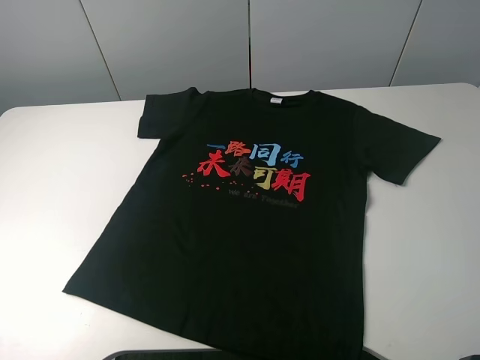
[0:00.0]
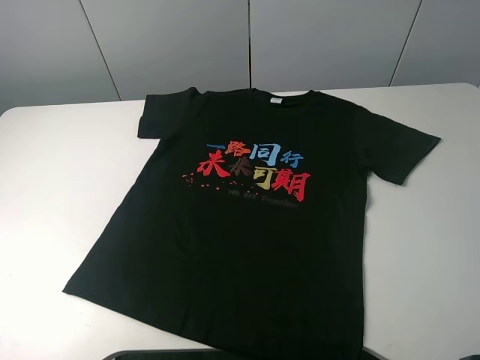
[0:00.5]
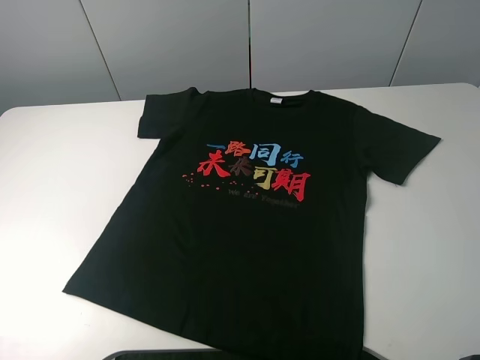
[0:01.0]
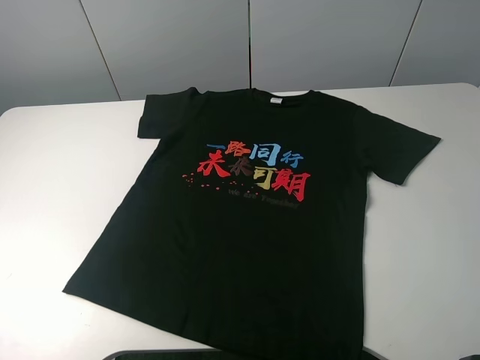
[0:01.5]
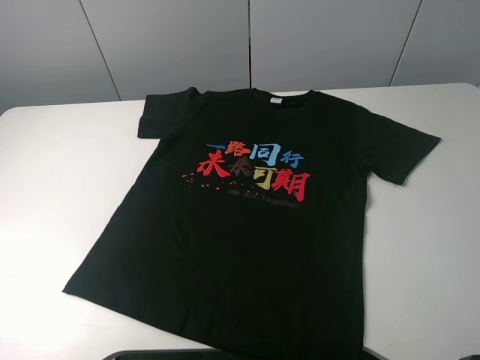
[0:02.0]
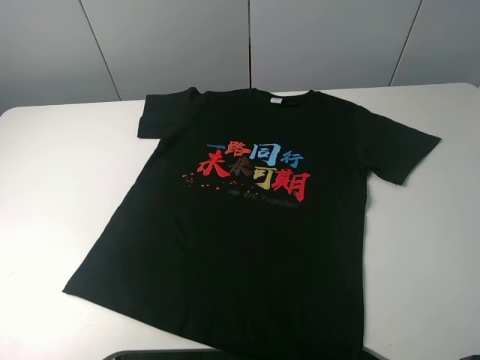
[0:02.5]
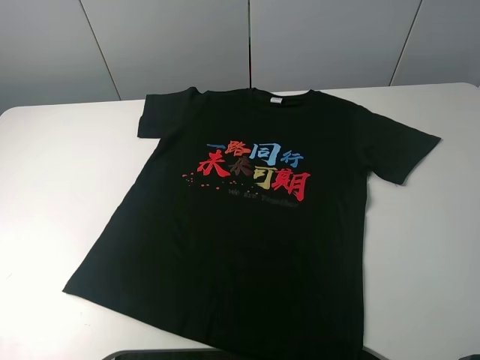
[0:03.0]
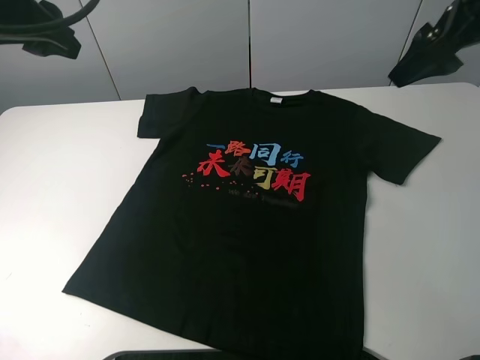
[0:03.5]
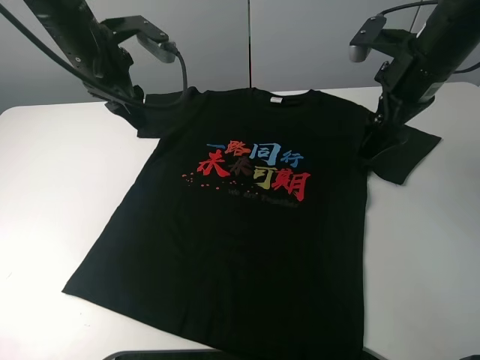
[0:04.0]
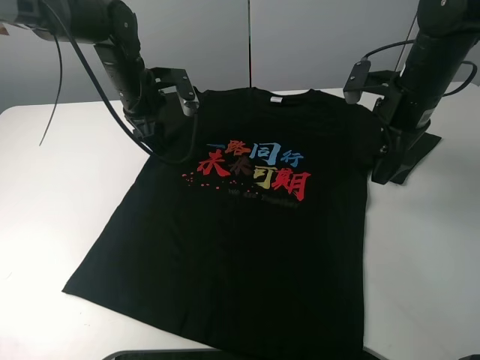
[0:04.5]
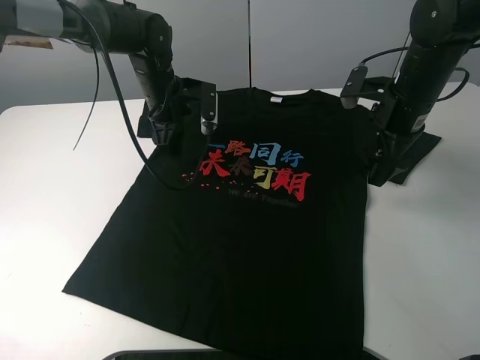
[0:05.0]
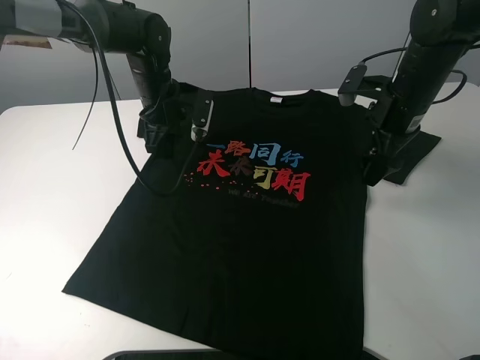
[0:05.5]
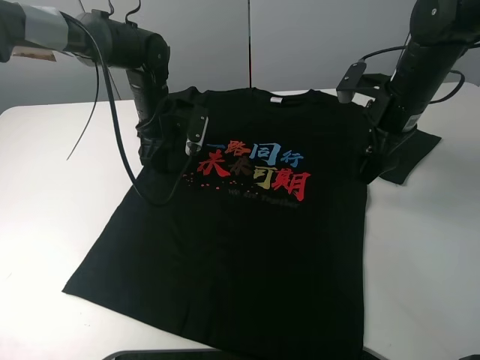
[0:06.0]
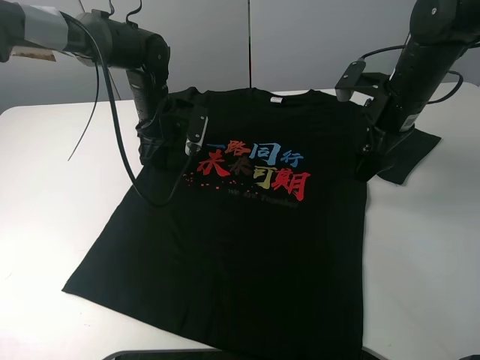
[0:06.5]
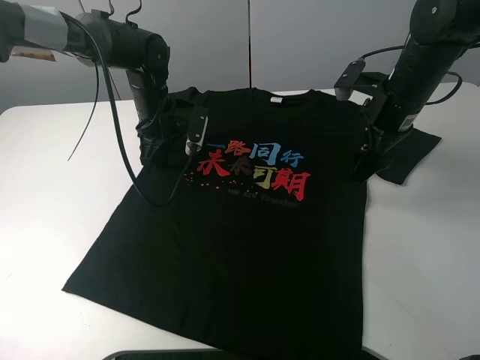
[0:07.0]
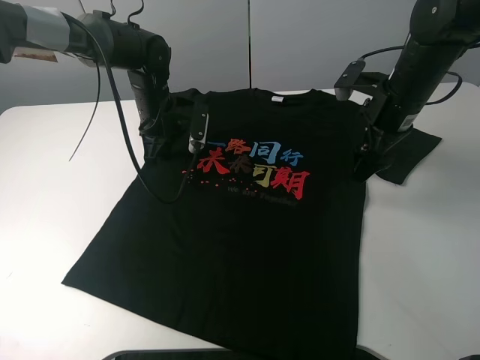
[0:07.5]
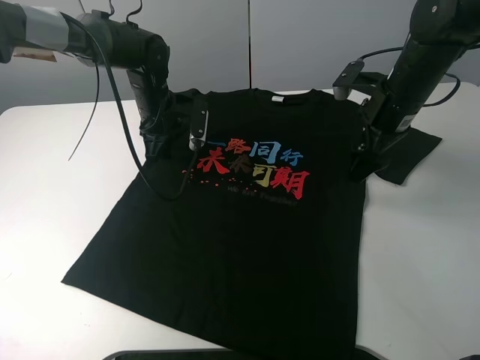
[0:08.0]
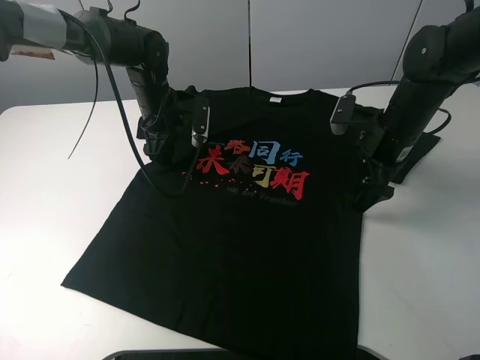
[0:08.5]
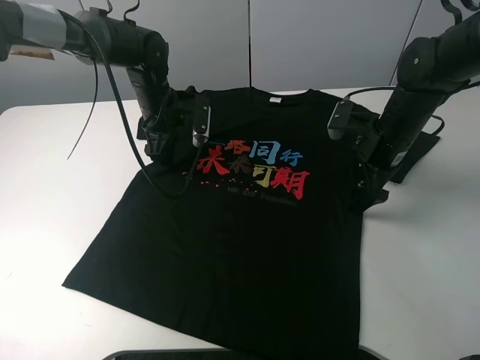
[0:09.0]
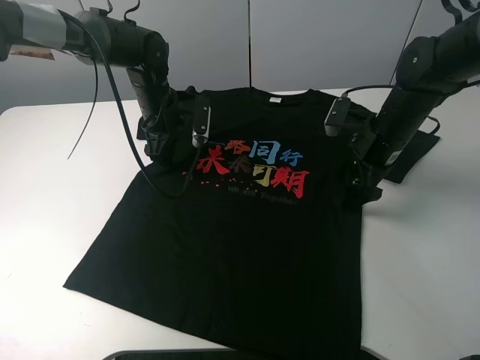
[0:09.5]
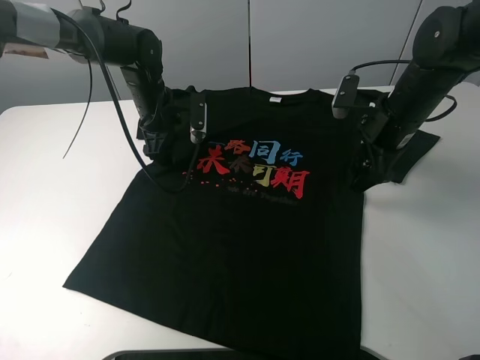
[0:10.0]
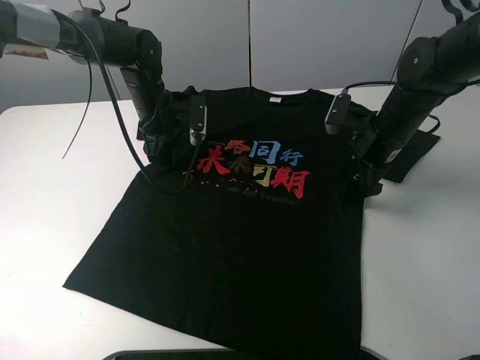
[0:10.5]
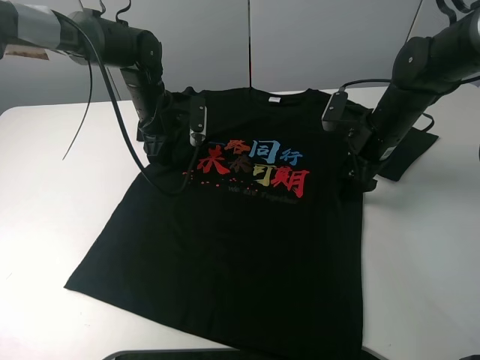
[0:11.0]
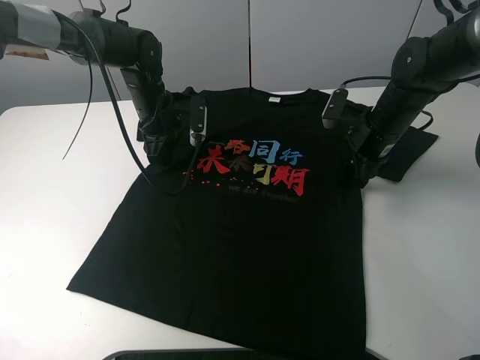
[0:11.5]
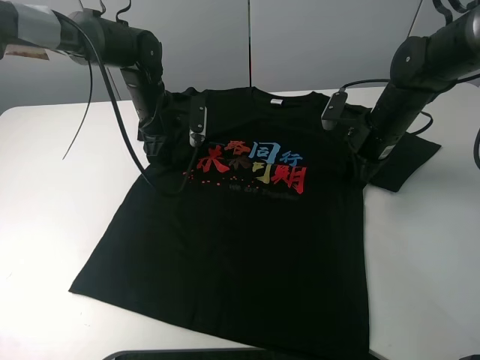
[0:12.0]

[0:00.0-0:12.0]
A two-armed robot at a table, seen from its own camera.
Task of the whole recording: fold the clothes on the table.
Step, 0:00.0 to 0:09.5: Lift the black T-shirt with the left gripper.
0:00.0 to 0:02.0: Both grippers stay put.
0:02.0 to 0:04.0: The left gripper moves forward and to the right, approximately 40 cm. The right gripper heads forward, covering roughly 35 cm.
0:04.0 to 0:06.0: The right gripper goes some 5 cm downward, while the left gripper goes approximately 15 cm downward and to the right.
0:06.0 to 0:08.0: The left gripper closes its fingers.
0:08.0 to 0:10.0: The left gripper opens its fingers.
0:10.0 to 0:12.0: The right gripper moves downward, roughly 5 cm, and closes up.

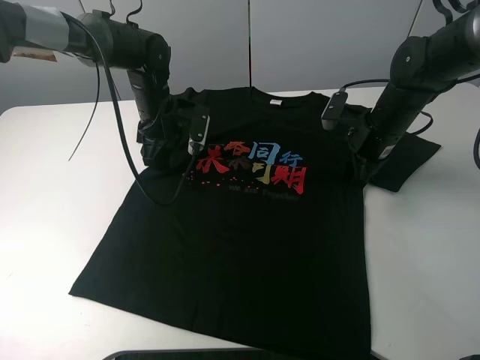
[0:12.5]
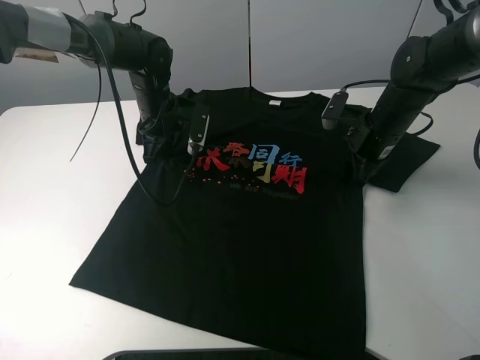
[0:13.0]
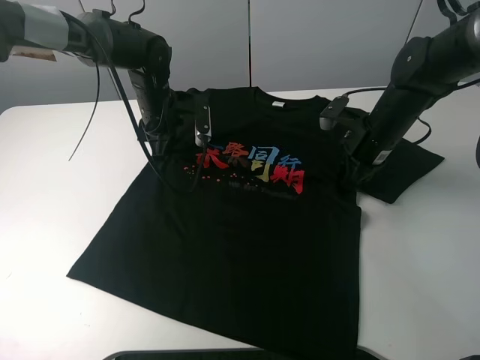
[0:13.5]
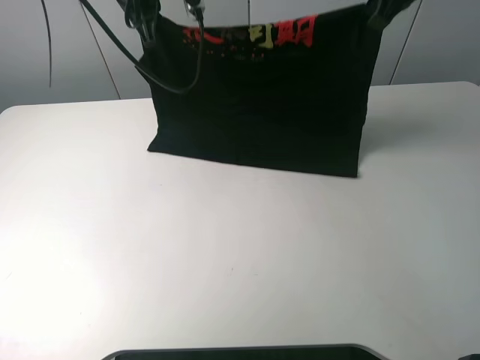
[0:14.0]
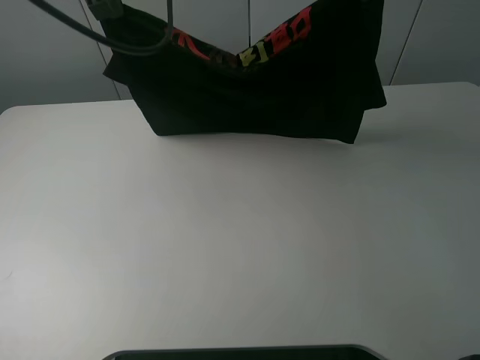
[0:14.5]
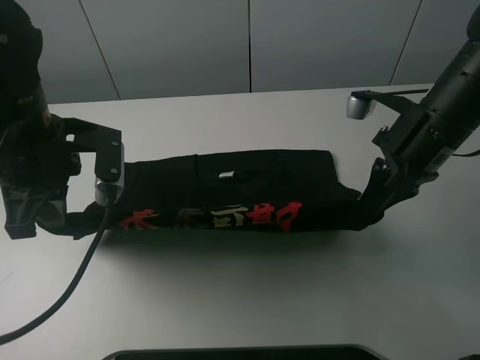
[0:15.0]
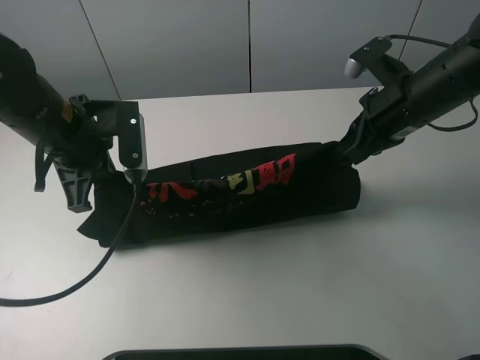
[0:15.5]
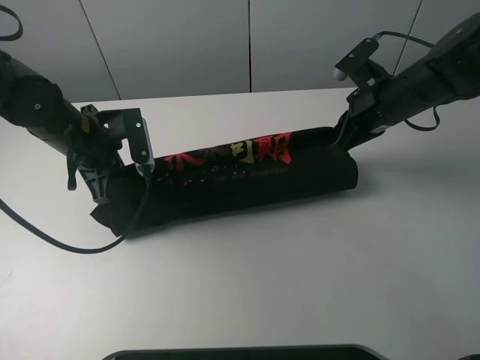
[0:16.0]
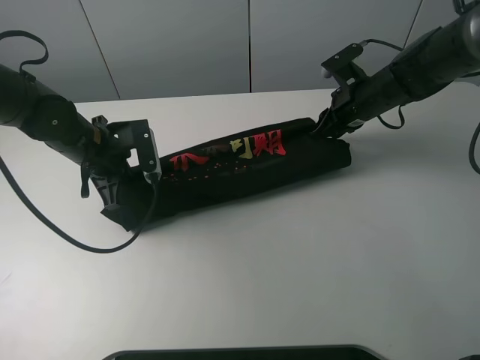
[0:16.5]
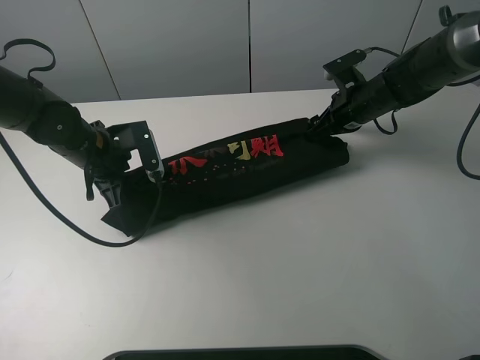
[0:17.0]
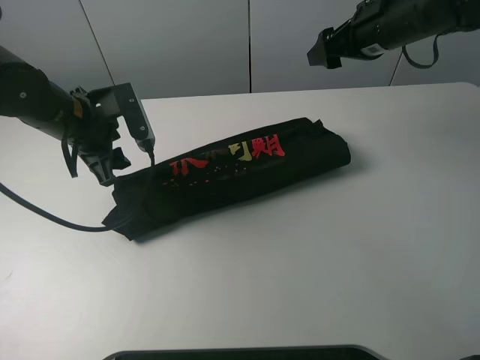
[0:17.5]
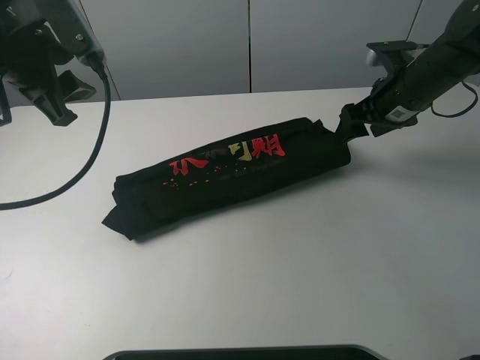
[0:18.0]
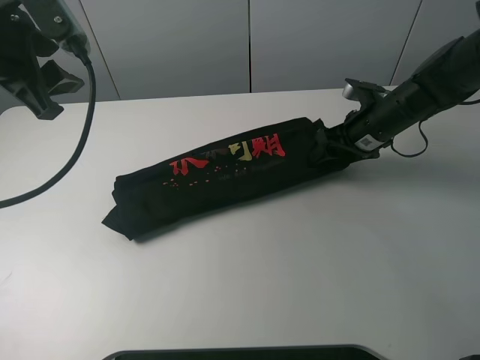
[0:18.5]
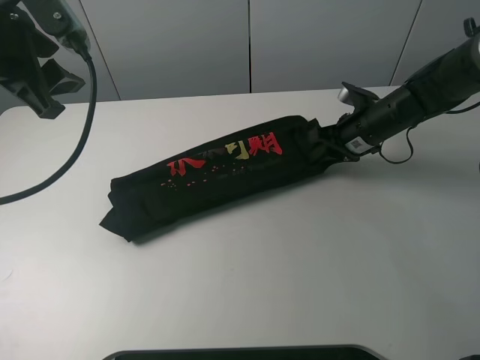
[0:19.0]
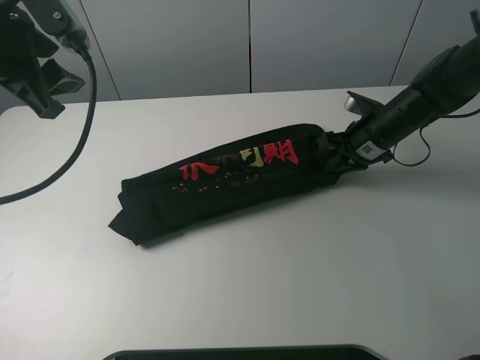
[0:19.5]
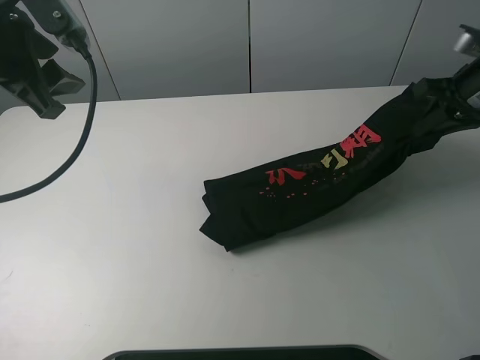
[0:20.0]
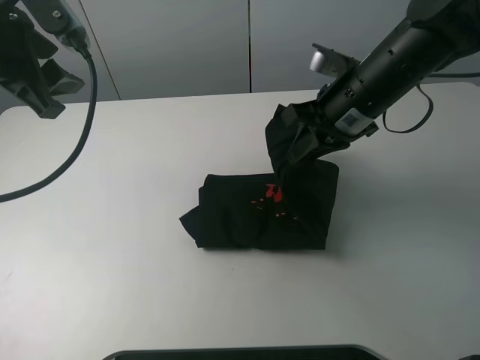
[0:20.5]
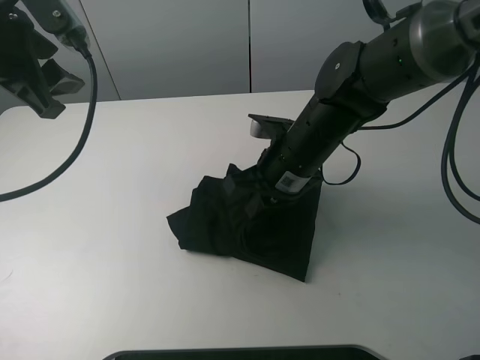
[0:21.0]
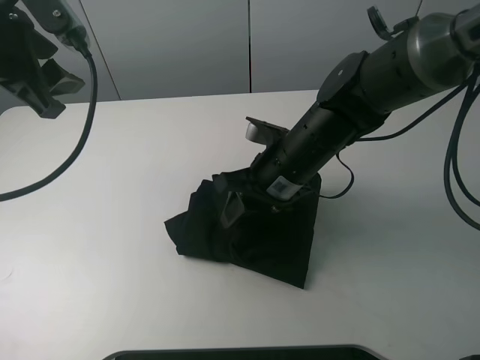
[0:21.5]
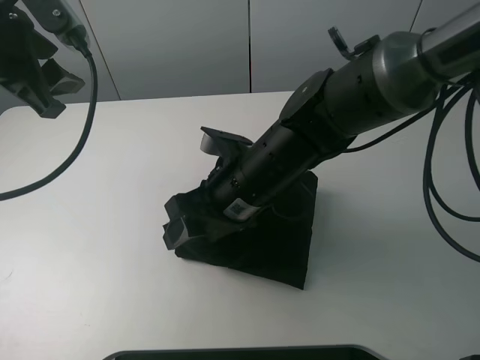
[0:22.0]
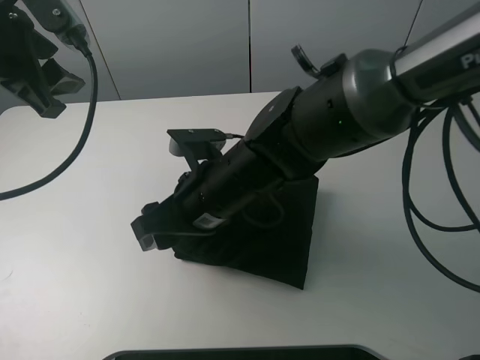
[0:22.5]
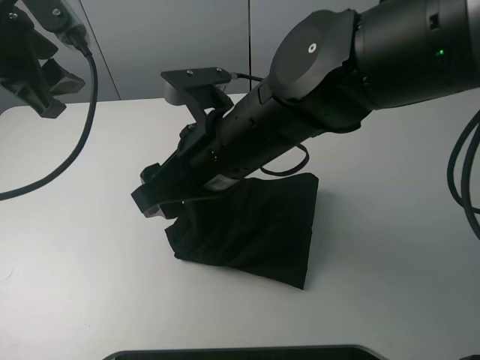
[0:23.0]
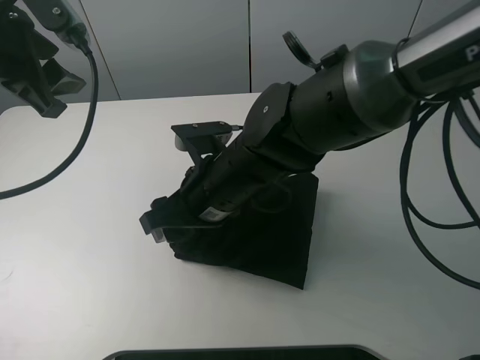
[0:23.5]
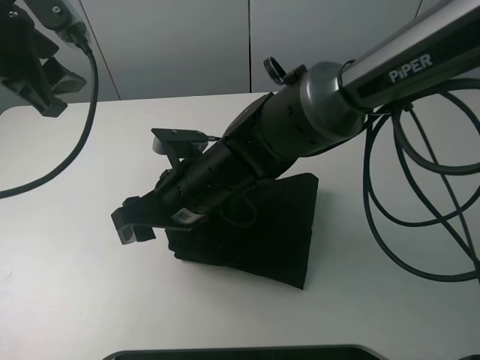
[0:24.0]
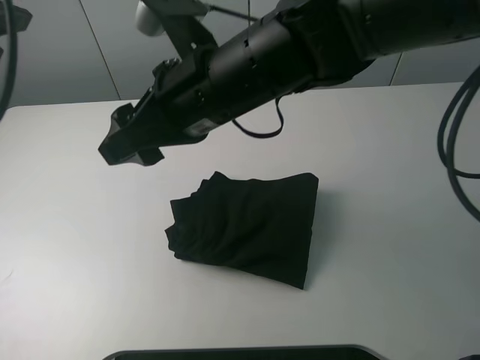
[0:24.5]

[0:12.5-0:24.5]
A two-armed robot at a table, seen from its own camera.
Task of the whole recording: fold the clothes on the table.
Step, 0:12.5 to 0:17.0: Fold the black T-shirt downward with the left gripper.
Step, 0:17.5 to 0:19.0: Grasp the black T-shirt with the right gripper.
Step, 0:19.5 to 0:22.5: Fold the black T-shirt from right to left with right gripper.
0:12.5 to 0:14.5: The two grippers go approximately 25 cm upward. The left gripper closes.
0:14.5 to 0:16.5: Both grippers travel together downward, approximately 25 cm. The right gripper opens its fingers.
0:16.5 to 0:18.5: The left gripper goes roughly 20 cm upward, and opens its fingers; the right gripper goes upward and returns, some 10 cm each way, and opens.
0:18.5 to 0:20.5: The right gripper goes some 15 cm upward, to the left and backward, and closes its fingers.
0:20.5 to 0:22.5: The right gripper heads to the left and backward, covering roughly 20 cm, and opens.
0:22.5 to 0:24.5: The left gripper is displaced upward and backward by approximately 10 cm; the right gripper goes up and down, some 15 cm each way, reversing 2 times.
